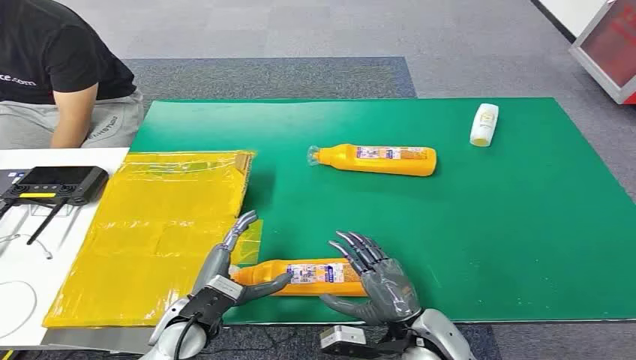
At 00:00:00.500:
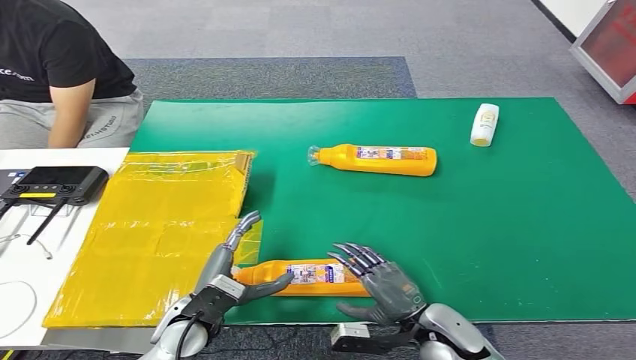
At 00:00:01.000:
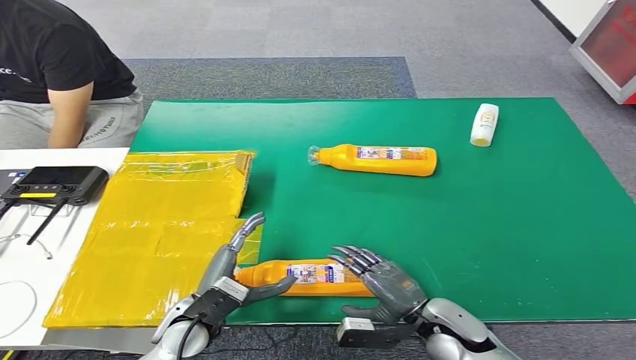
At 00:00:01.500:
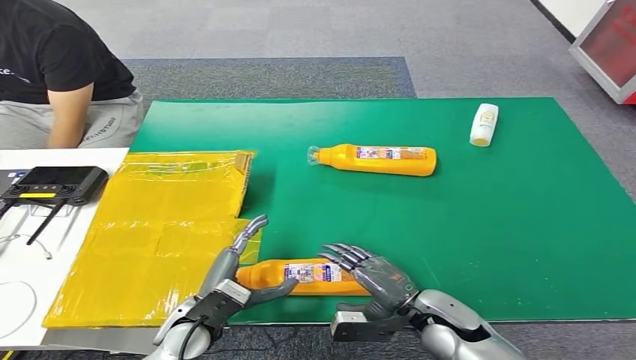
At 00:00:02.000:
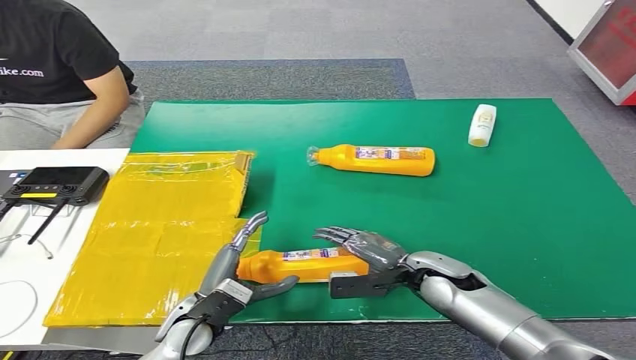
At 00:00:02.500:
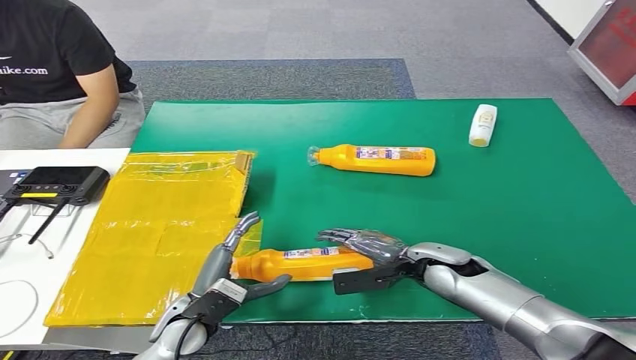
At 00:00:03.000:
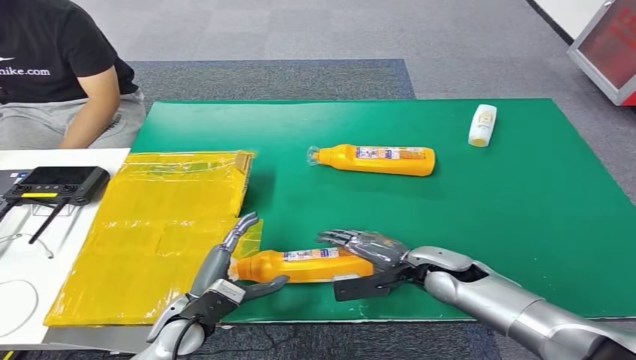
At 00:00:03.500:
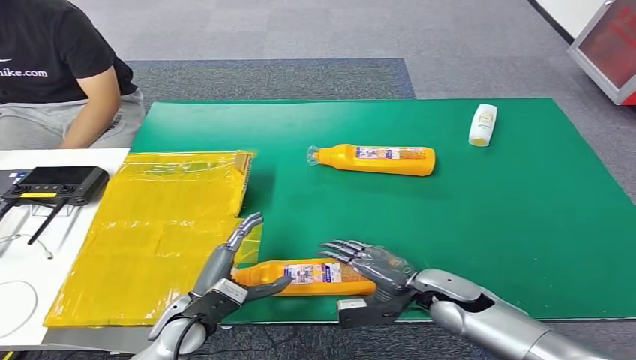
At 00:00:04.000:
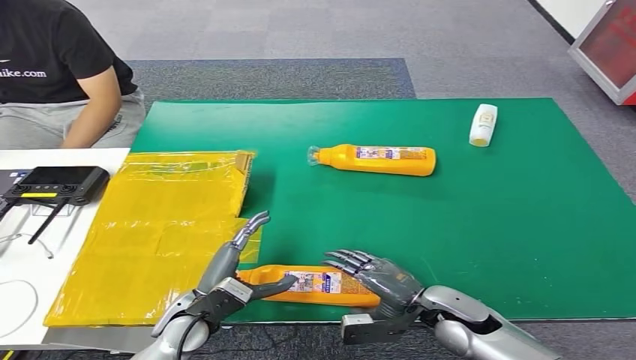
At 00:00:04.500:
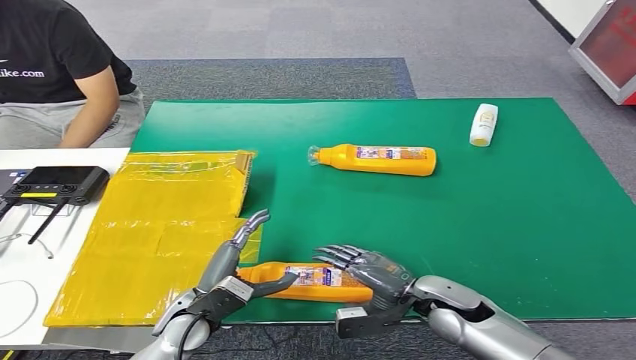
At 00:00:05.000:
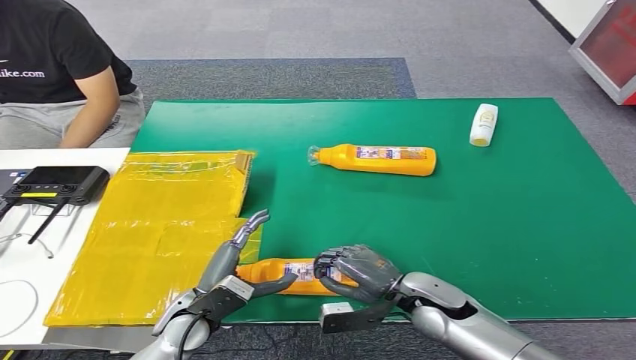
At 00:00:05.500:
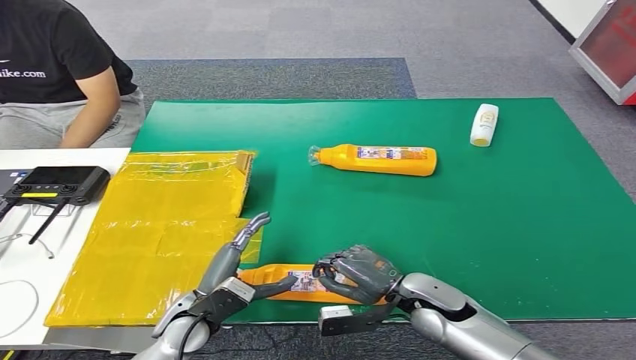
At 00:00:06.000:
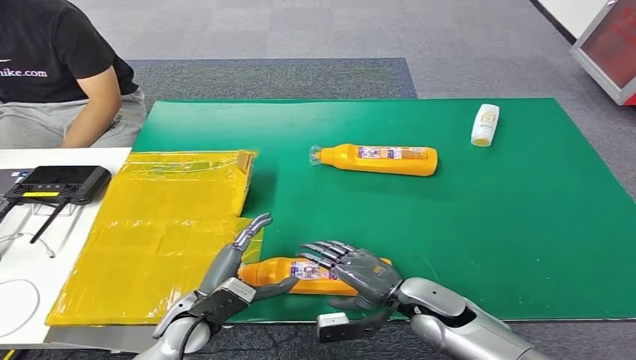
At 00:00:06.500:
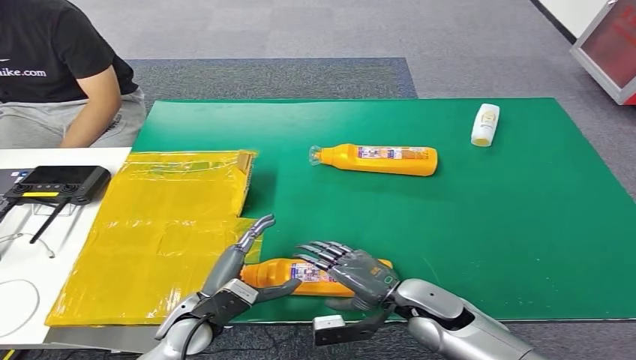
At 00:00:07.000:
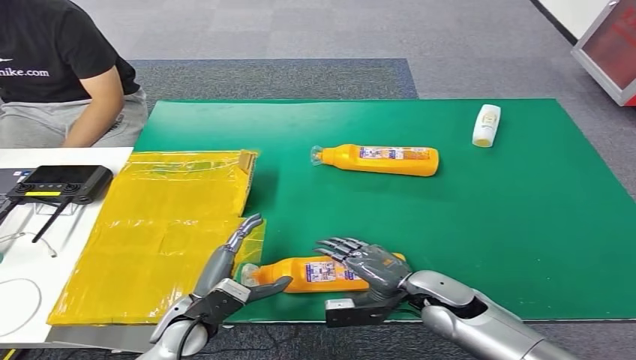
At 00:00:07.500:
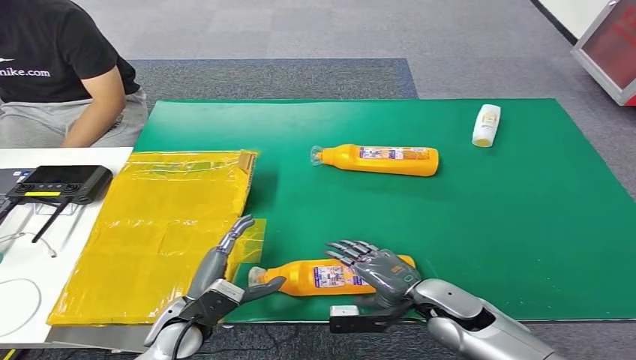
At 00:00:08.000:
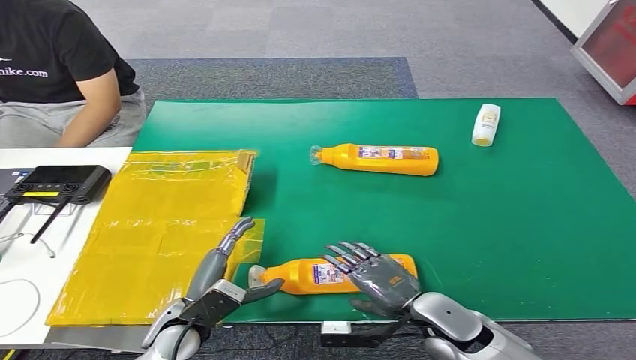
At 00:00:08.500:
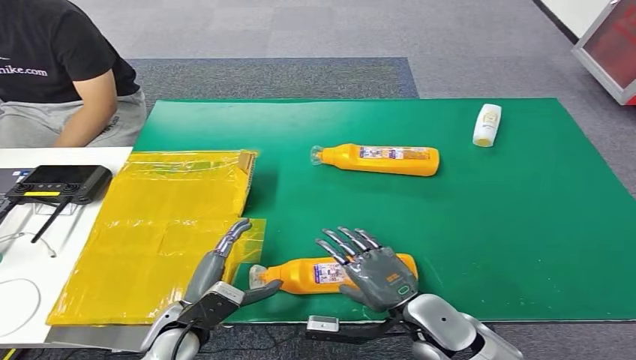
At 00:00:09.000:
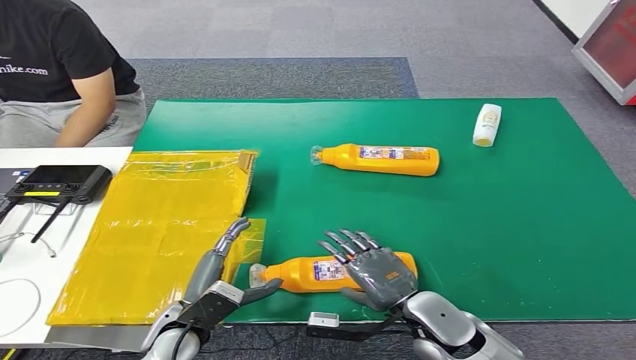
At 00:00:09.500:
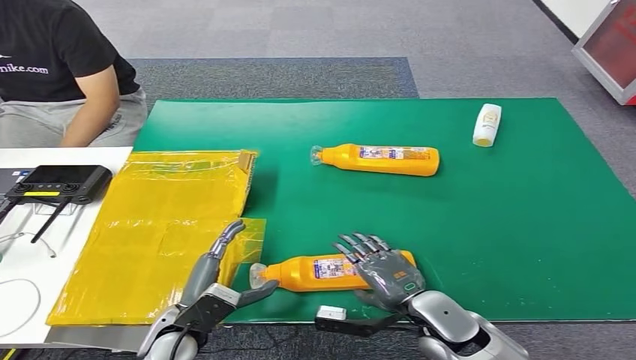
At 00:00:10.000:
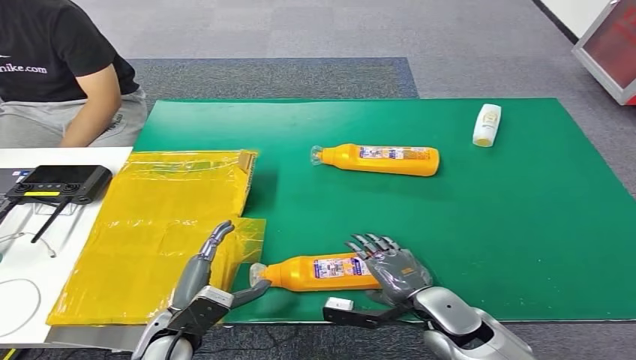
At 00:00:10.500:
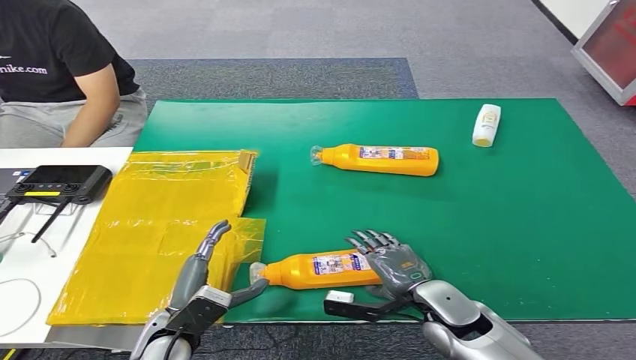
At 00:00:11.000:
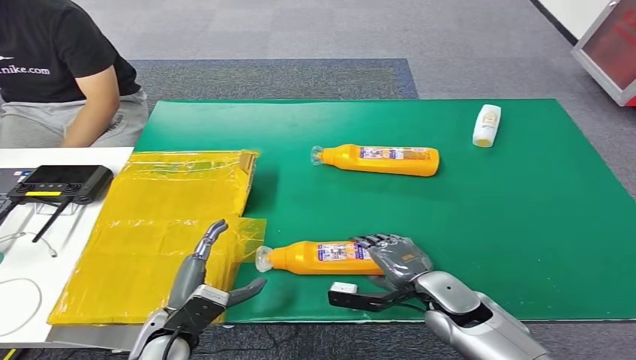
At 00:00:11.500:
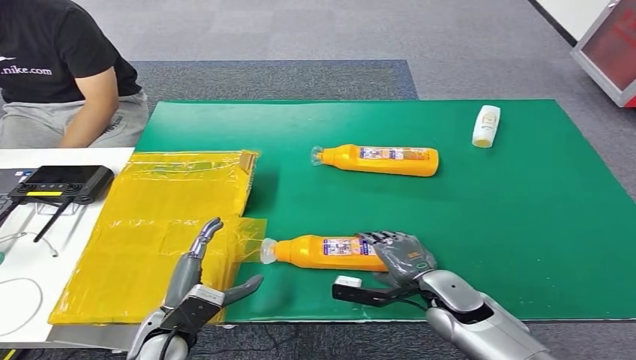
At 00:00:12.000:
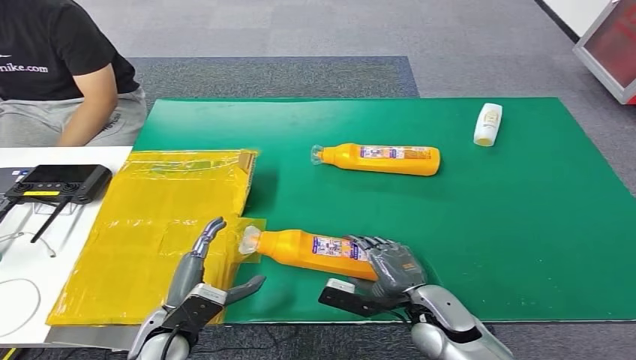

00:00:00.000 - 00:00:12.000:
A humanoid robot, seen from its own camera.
00:00:02.000 - 00:00:04.000: The right hand is displaced backward by roughly 5 cm.
00:00:04.000 - 00:00:06.000: The hands move only a little.
00:00:06.000 - 00:00:08.000: There are only small adjustments of the hands.
00:00:08.000 - 00:00:10.000: There are only small adjustments of the hands.

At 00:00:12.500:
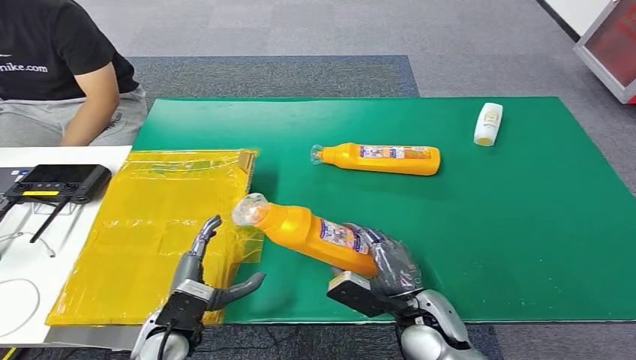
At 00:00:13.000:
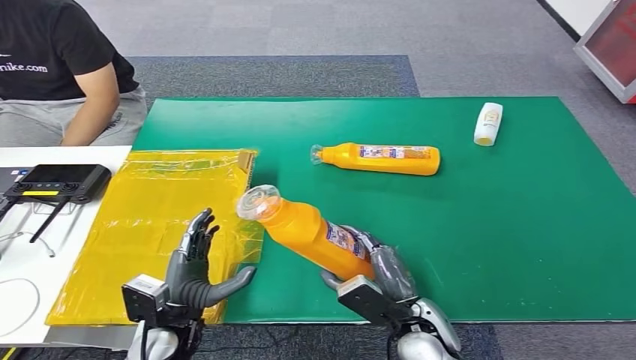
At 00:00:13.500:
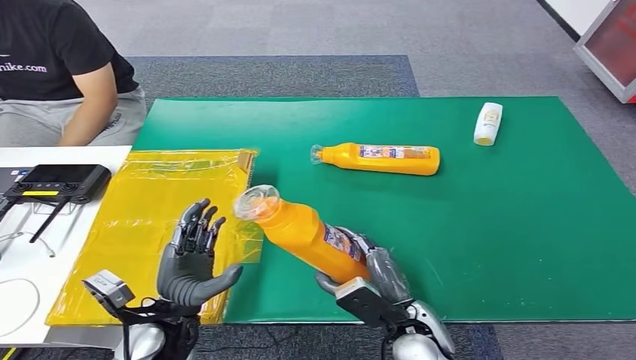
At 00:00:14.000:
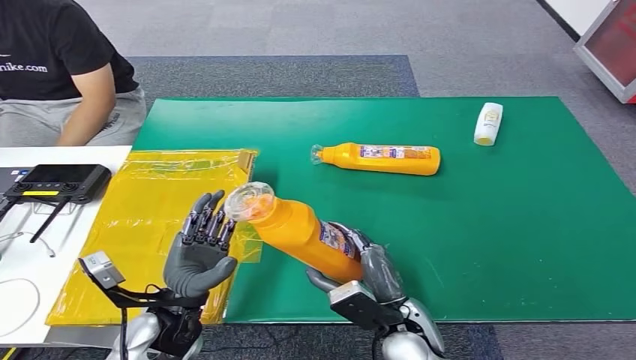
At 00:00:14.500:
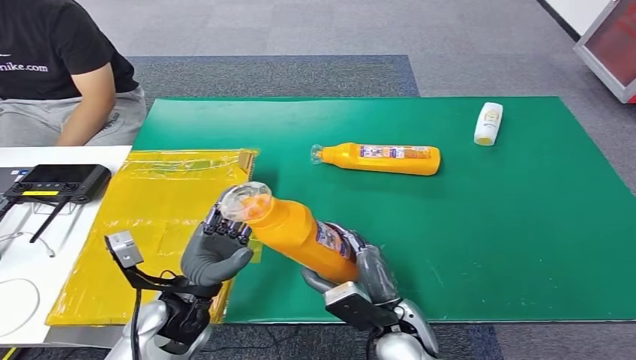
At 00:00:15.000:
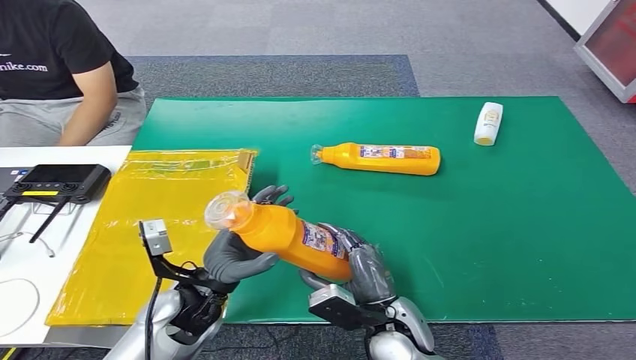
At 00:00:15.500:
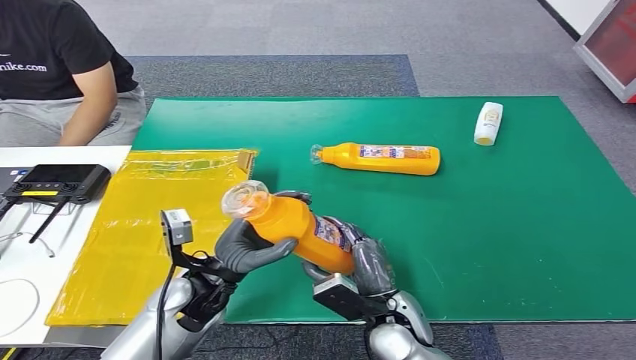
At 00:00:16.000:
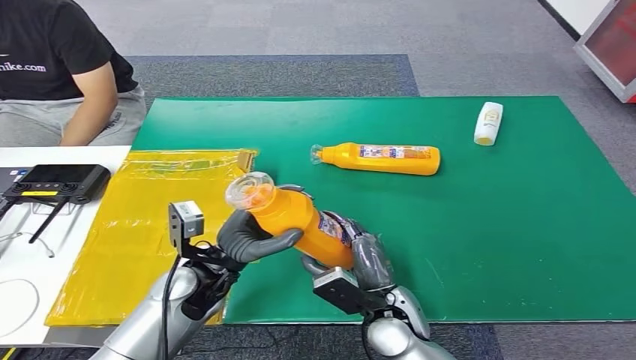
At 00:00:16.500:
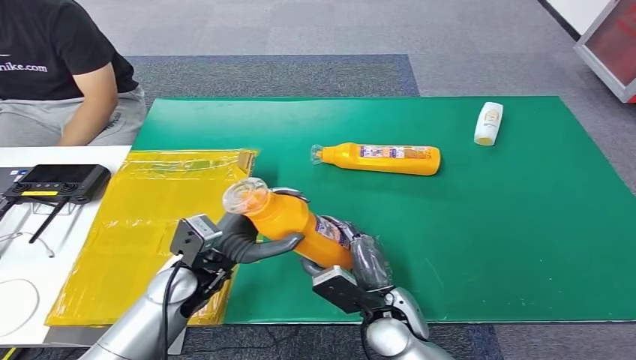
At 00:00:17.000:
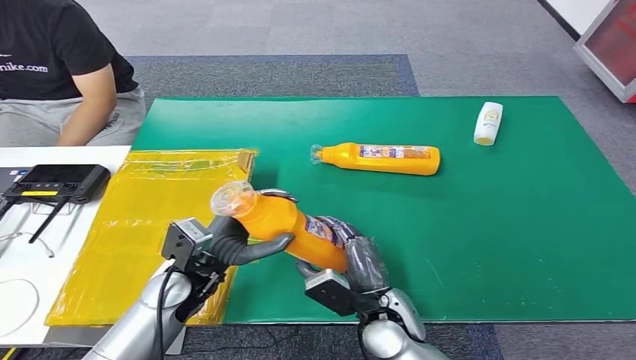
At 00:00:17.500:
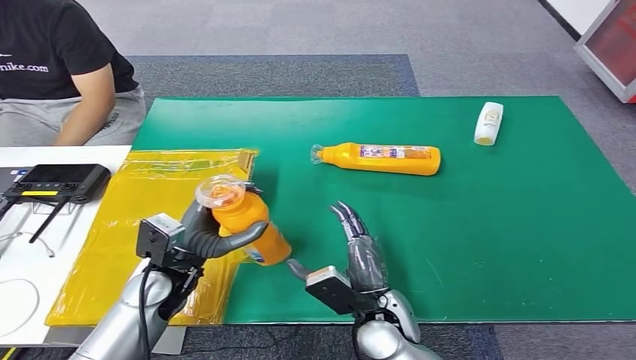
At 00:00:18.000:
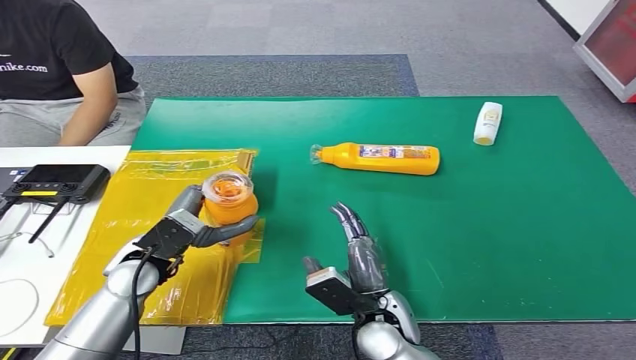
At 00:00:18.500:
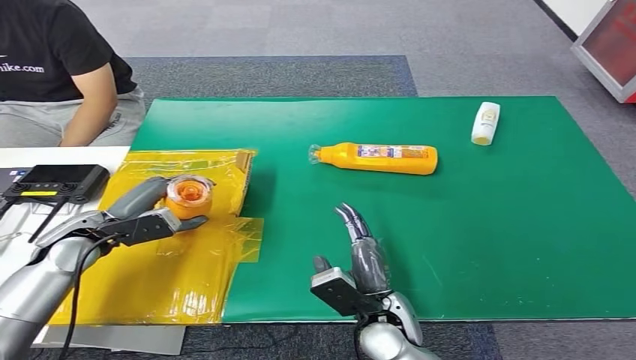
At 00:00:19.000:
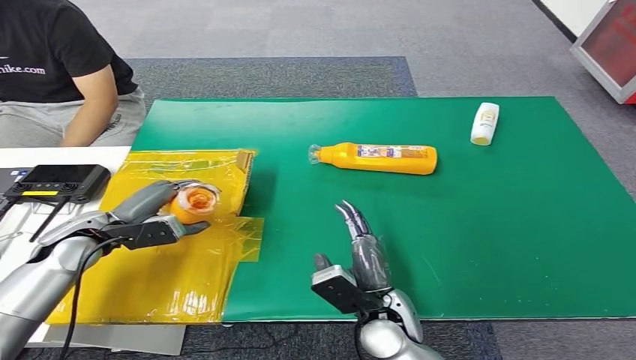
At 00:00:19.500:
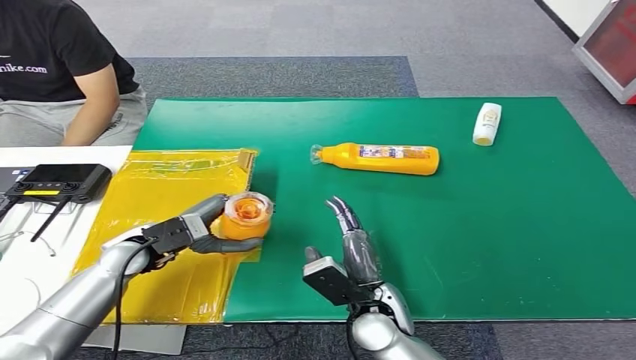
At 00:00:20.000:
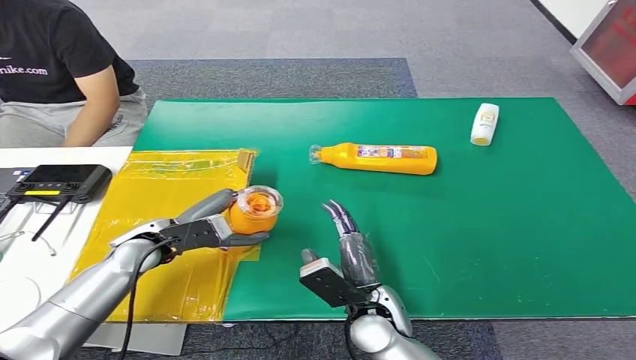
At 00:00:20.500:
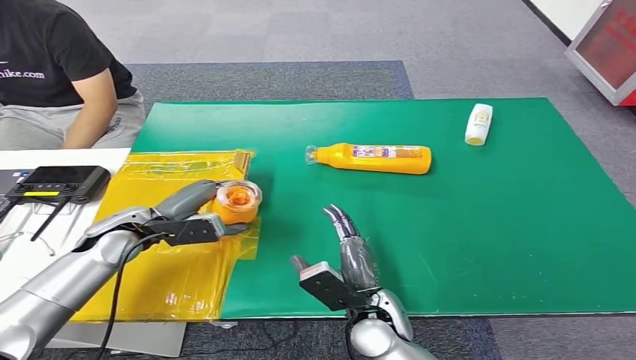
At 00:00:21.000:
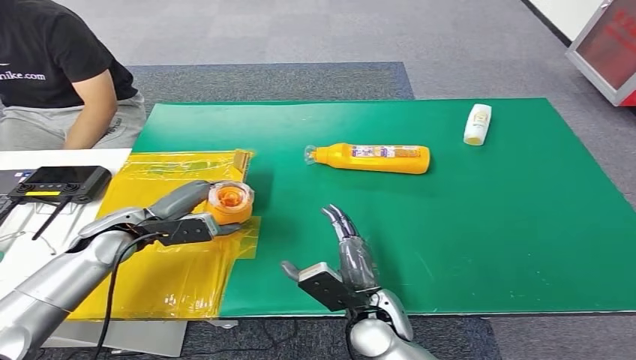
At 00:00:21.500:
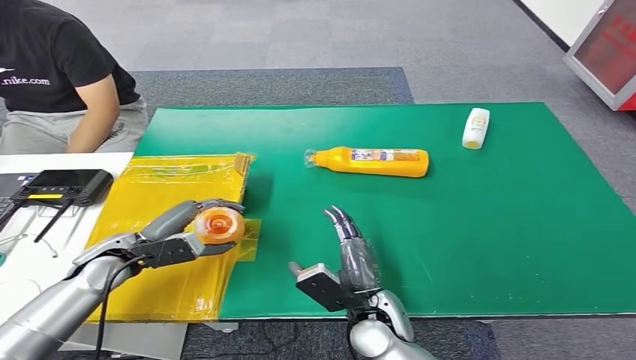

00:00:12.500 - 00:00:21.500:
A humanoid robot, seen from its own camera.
00:00:12.500 - 00:00:14.500: The left hand travels upward by approximately 5 cm.
00:00:17.000 - 00:00:19.500: The left hand is displaced to the left and forward by roughly 10 cm.
